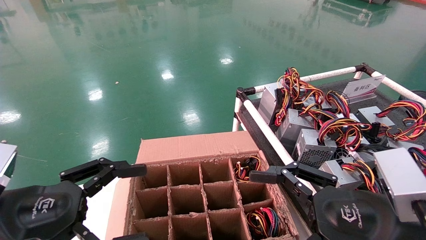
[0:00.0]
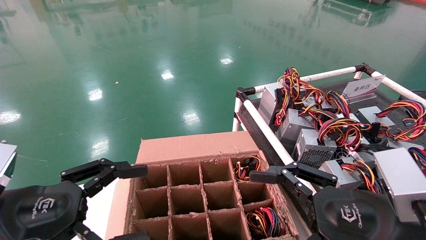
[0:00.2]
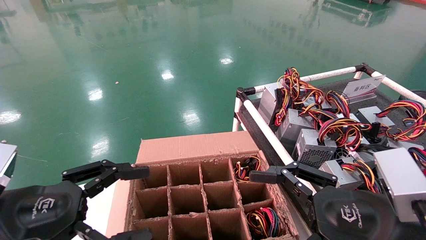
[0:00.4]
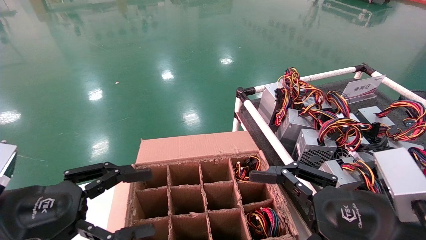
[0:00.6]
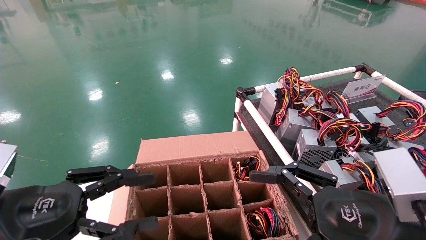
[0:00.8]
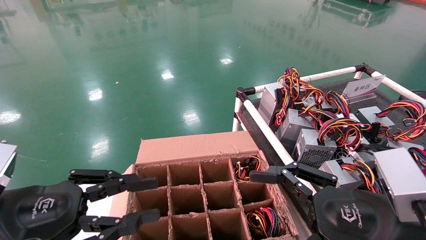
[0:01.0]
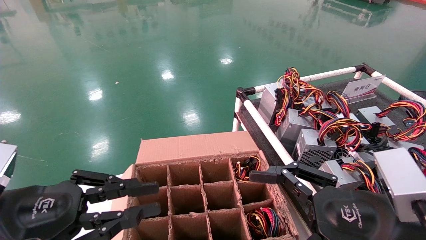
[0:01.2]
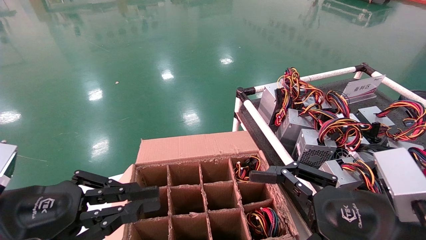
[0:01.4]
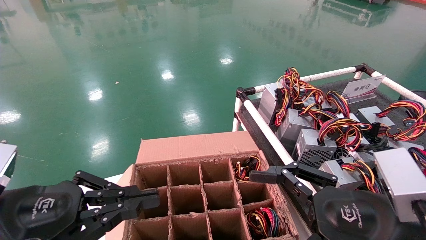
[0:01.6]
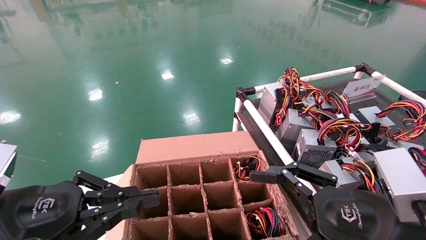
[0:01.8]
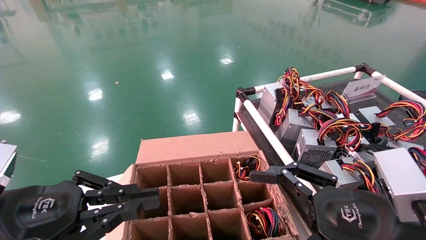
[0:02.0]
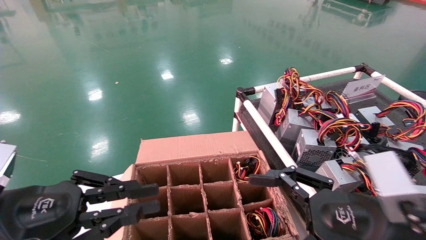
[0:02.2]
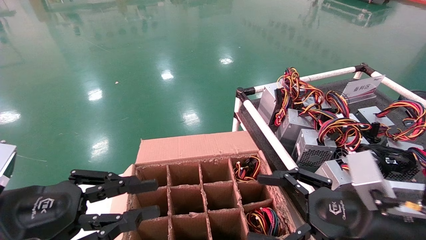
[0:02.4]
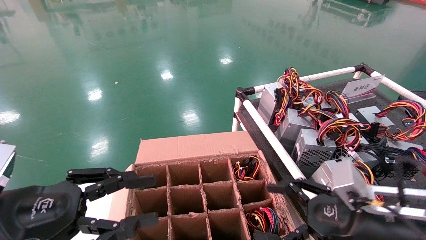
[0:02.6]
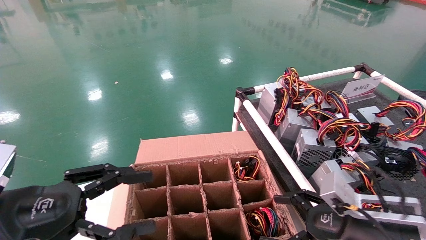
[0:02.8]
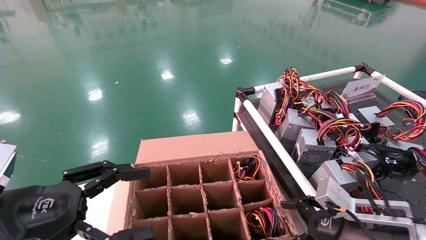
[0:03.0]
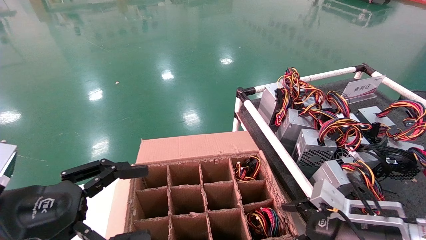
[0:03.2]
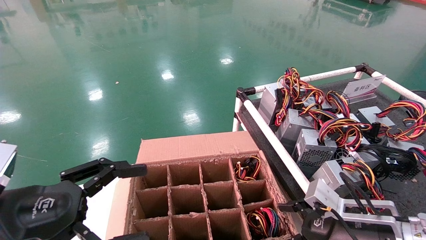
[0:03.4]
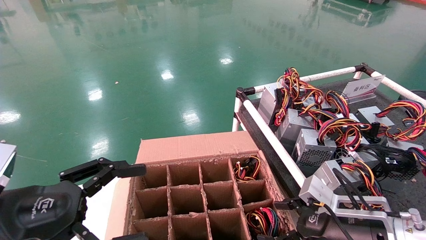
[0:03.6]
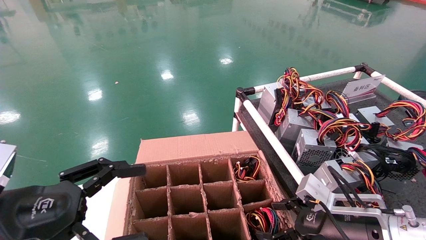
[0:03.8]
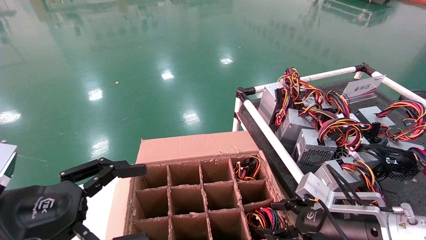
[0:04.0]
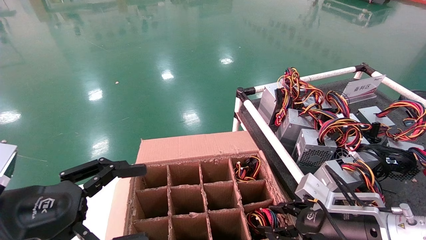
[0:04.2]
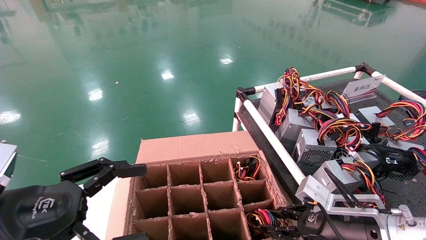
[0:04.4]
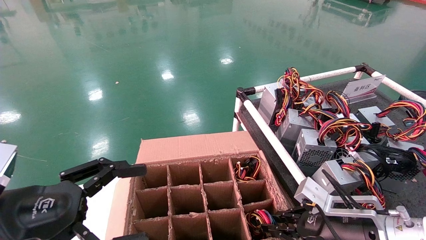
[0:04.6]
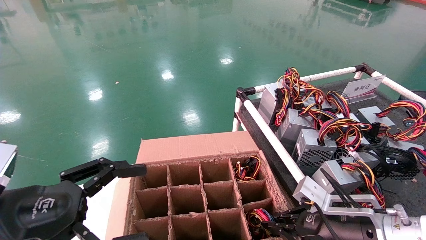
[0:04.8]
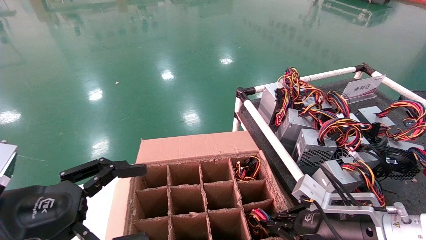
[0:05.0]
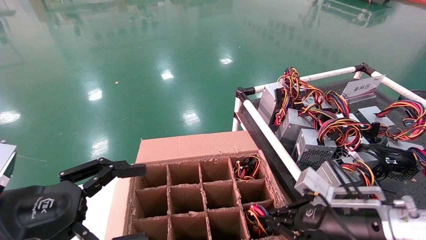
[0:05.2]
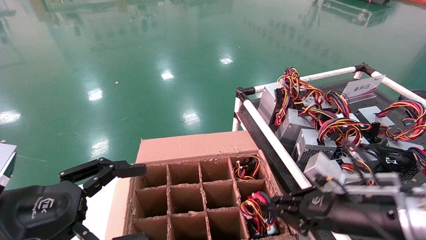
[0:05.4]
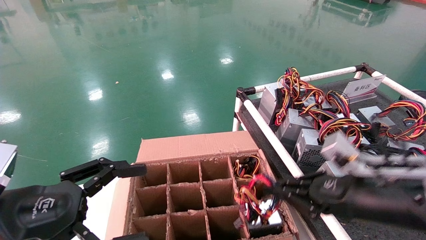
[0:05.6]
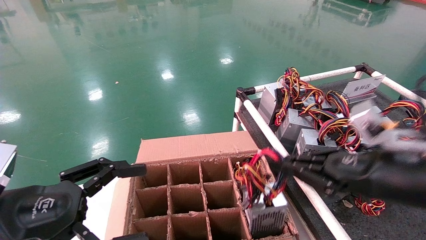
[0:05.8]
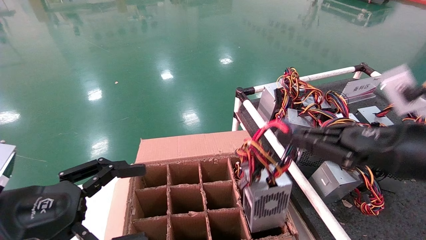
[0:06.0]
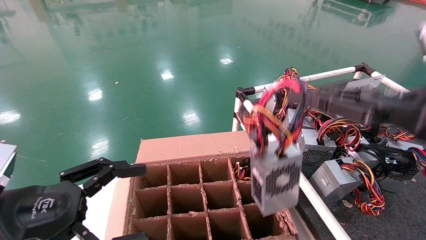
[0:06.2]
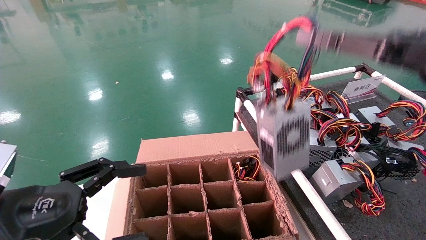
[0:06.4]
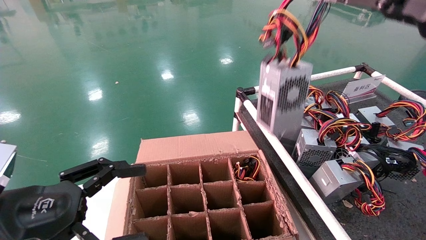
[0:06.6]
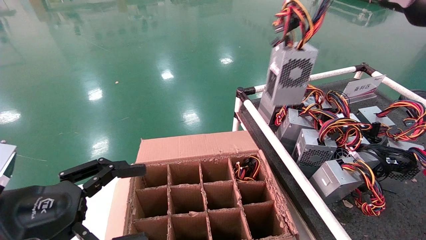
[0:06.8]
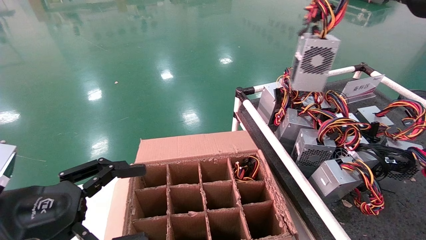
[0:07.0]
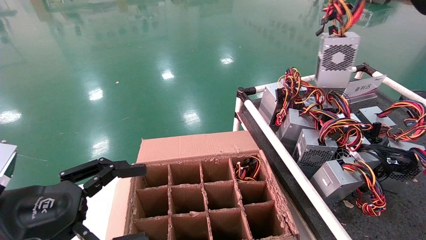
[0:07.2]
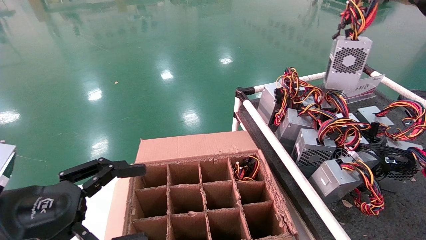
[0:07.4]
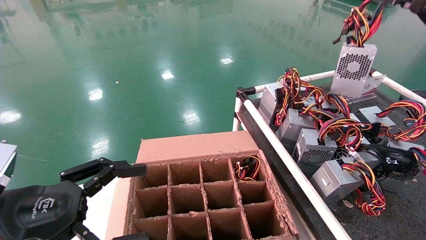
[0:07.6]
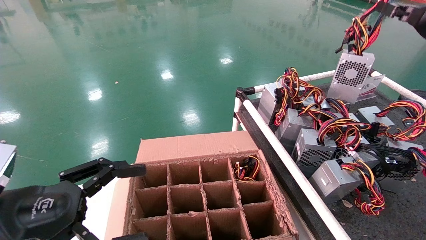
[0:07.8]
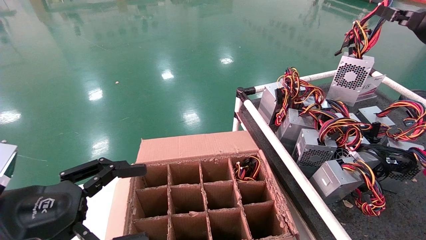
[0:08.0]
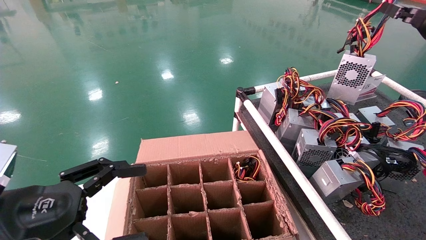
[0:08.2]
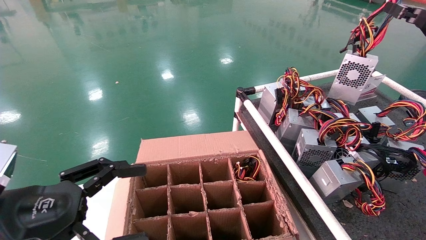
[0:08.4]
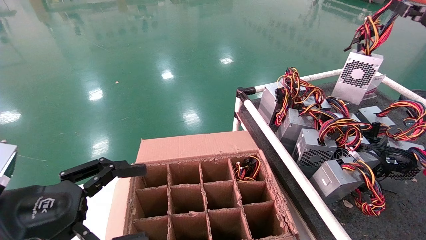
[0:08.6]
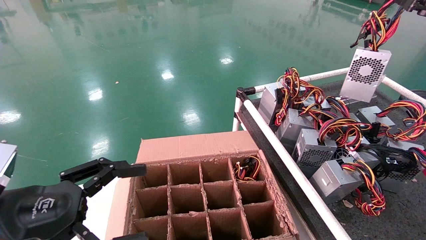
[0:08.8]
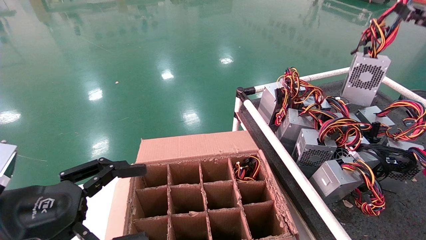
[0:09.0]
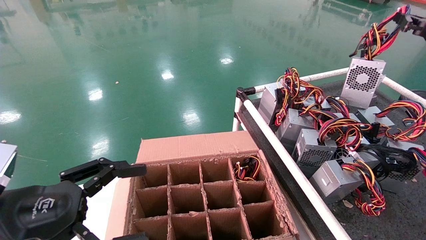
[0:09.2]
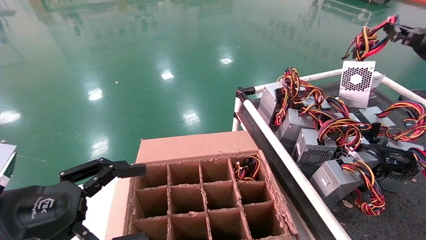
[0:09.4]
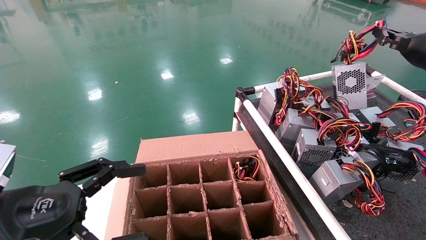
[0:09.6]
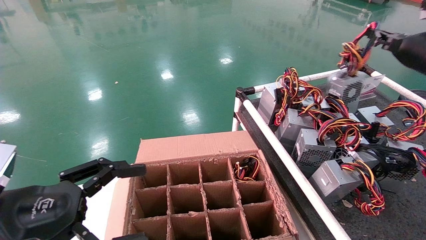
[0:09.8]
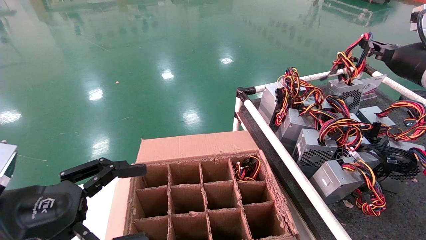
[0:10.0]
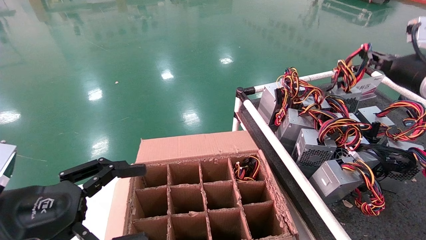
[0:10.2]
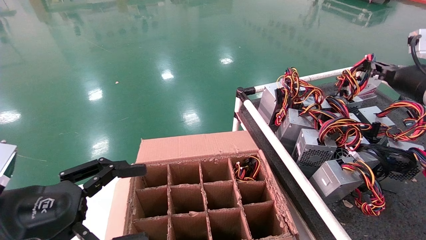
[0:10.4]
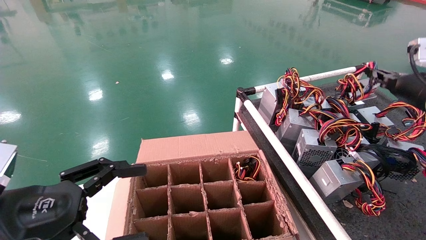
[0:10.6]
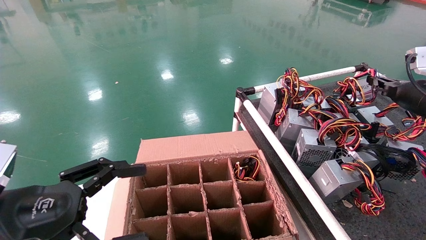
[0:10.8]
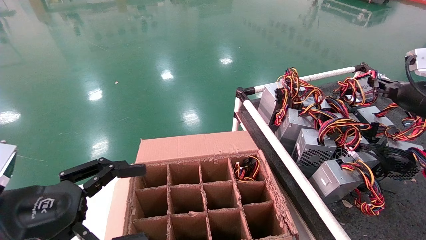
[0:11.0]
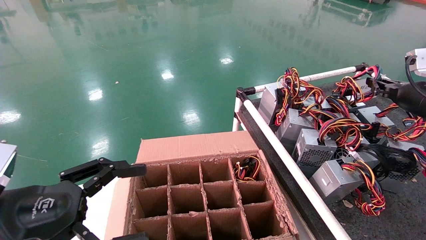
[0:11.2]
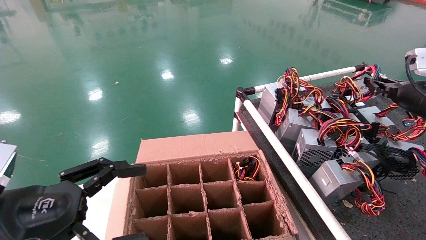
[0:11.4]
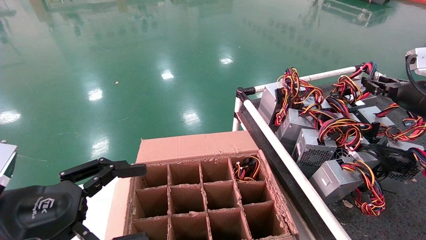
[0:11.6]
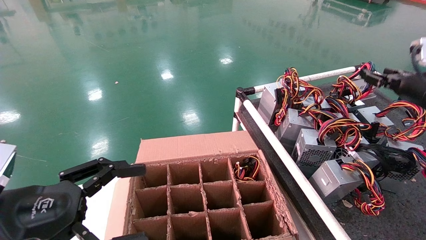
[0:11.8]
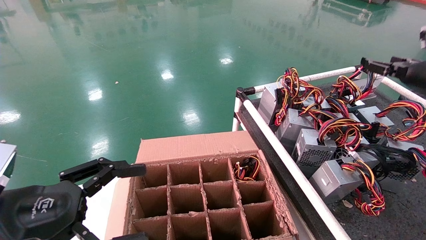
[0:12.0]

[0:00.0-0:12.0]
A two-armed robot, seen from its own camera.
Step, 0:02.6 to 0:04.8: Grab and lift the power supply from the large box.
Step, 0:05.0 to 0:11.6: Place the power supply on the operating table.
0:00.0 to 0:01.6: The left gripper closes its fingers.
0:01.6 to 0:03.0: The left gripper opens up. Meanwhile the right gripper goes approximately 10 cm forward and downward.
0:03.0 to 0:04.4: The right gripper closes its fingers.
0:04.4 to 0:06.0: The right gripper goes roughly 20 cm upward and backward, and closes its fingers.
0:06.0 to 0:07.6: The right gripper heads upward, forward and to the right, covering roughly 25 cm.
0:07.6 to 0:09.0: The grippers make only small movements.
0:09.0 to 0:10.4: The right gripper moves downward, some 10 cm.
0:10.4 to 0:12.0: The right gripper opens up.

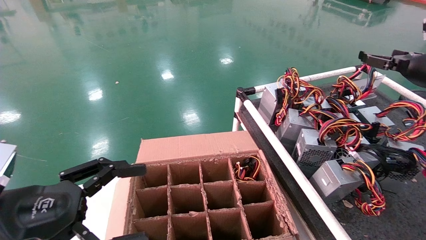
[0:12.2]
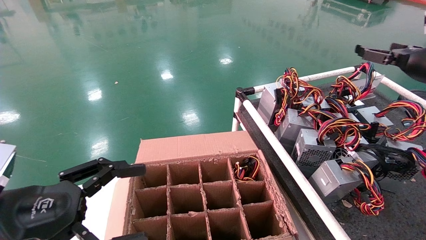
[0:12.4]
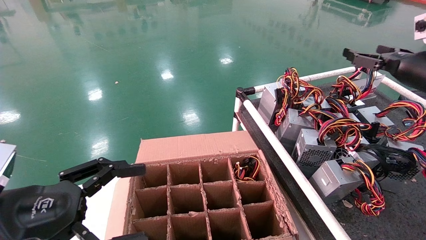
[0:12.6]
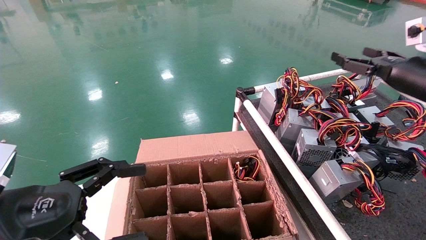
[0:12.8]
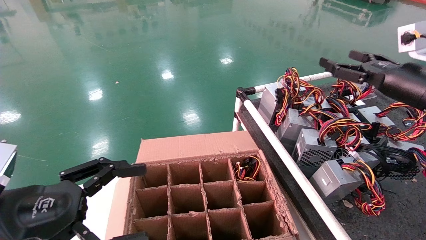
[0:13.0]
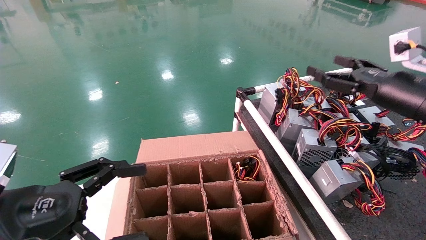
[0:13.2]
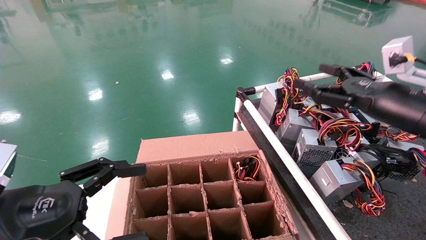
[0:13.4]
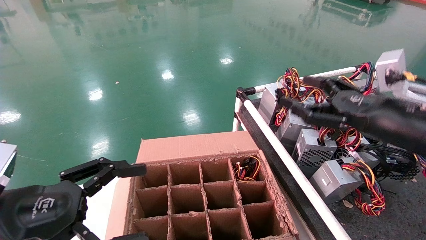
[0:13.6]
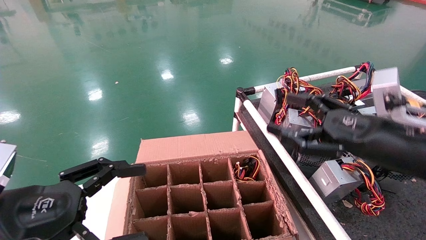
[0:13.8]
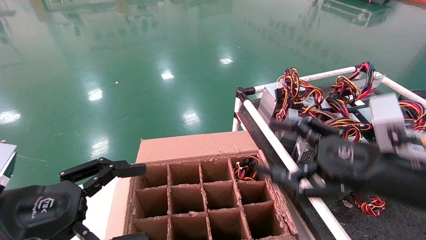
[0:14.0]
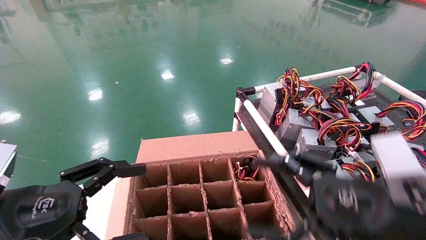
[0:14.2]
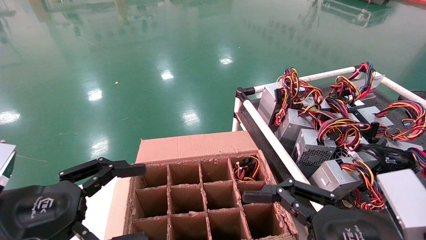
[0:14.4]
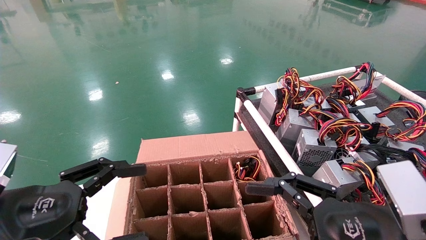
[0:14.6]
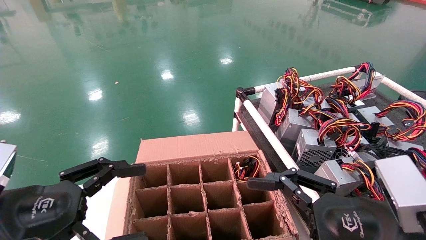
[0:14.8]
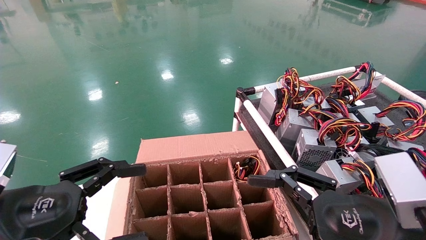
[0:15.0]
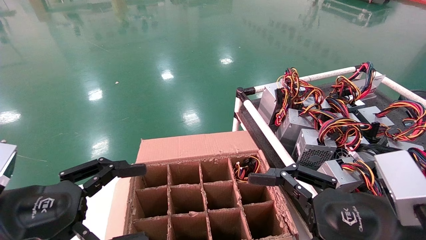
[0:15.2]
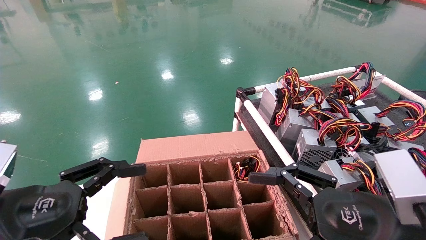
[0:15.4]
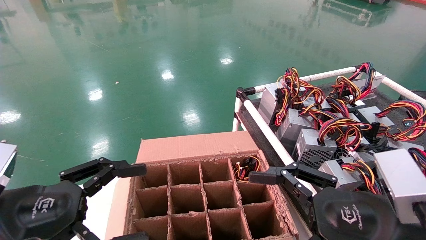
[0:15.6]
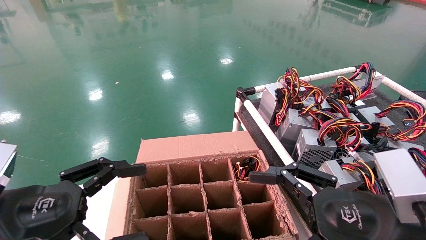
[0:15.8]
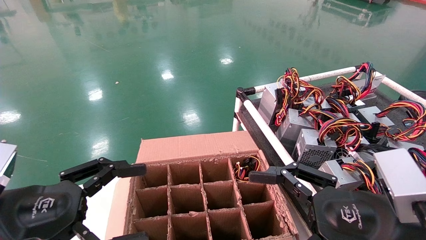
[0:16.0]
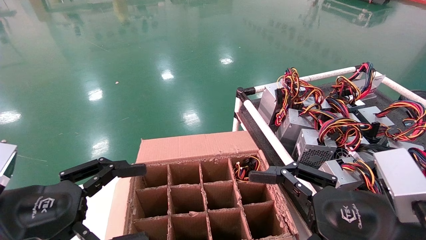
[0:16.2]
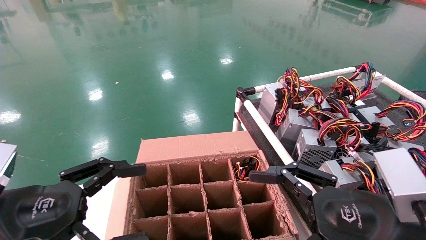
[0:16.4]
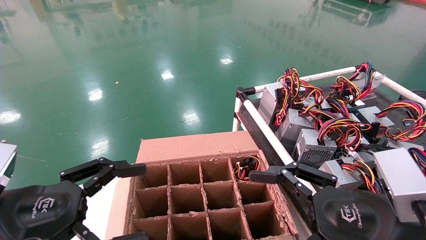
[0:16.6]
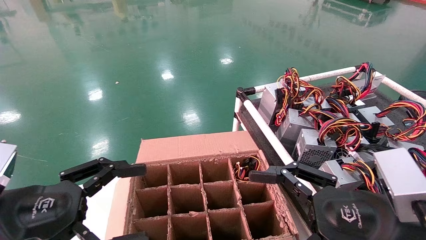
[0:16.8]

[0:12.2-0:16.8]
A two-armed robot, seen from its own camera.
0:12.2 to 0:13.8: The right gripper goes roughly 25 cm to the left, backward and downward.
0:13.8 to 0:15.2: The right gripper heads backward and downward, covering roughly 10 cm.
0:15.2 to 0:16.8: The two grippers keep their place.
